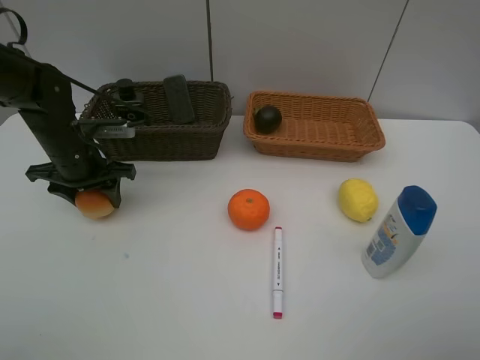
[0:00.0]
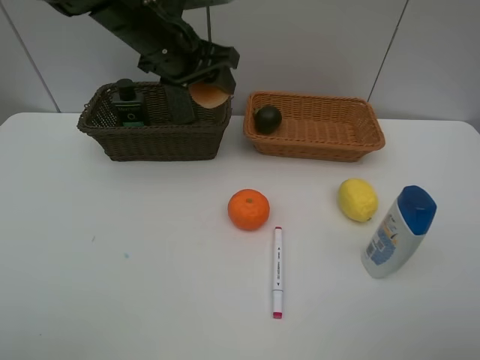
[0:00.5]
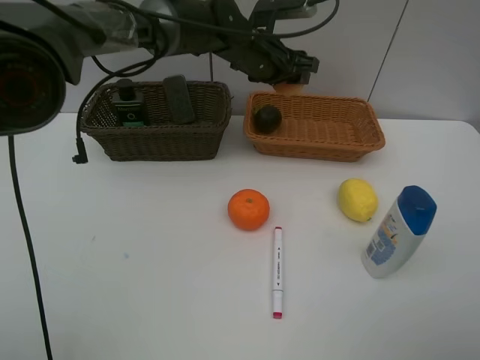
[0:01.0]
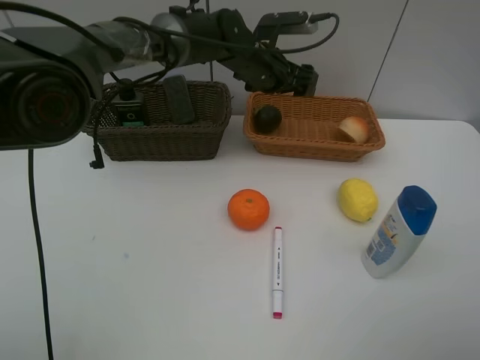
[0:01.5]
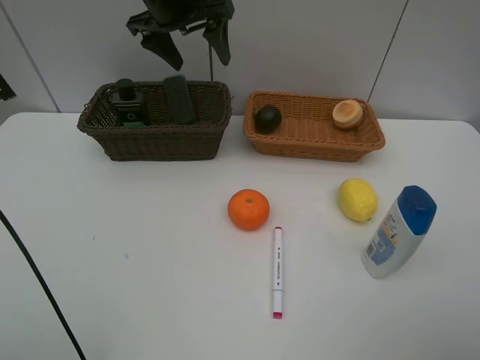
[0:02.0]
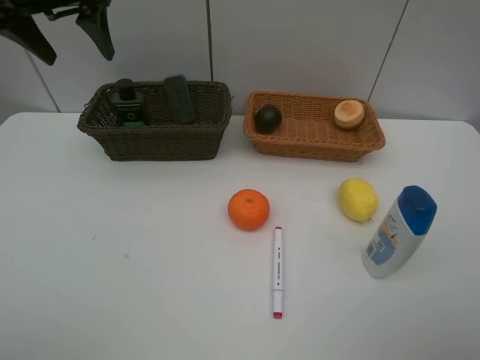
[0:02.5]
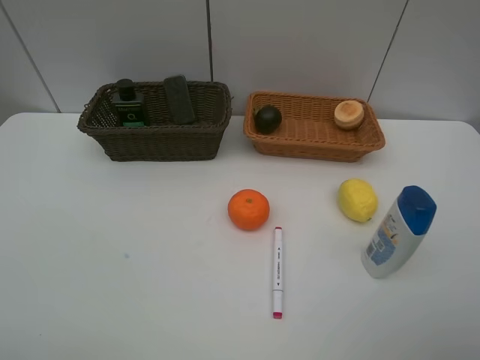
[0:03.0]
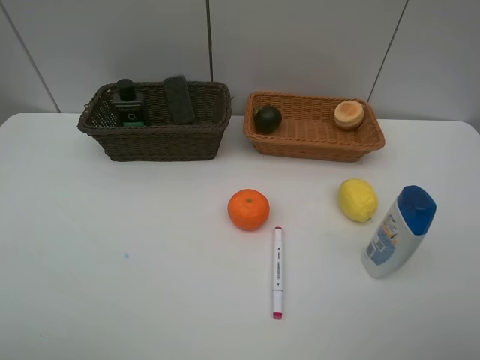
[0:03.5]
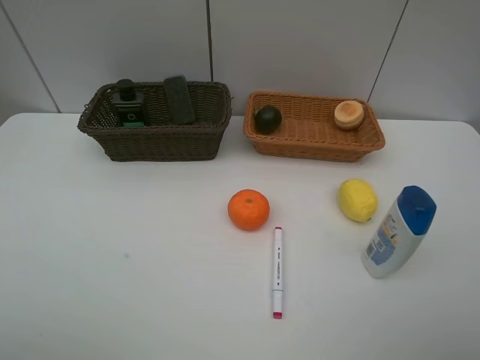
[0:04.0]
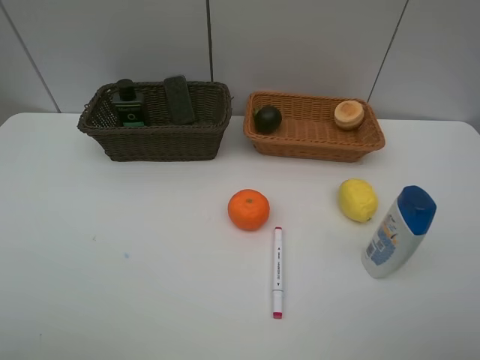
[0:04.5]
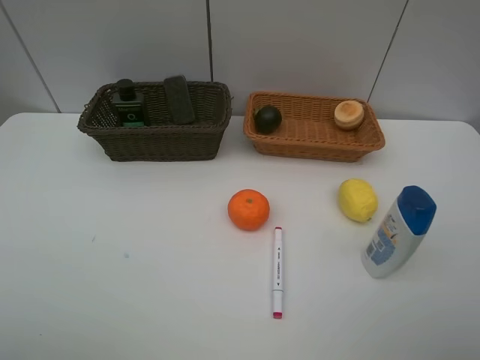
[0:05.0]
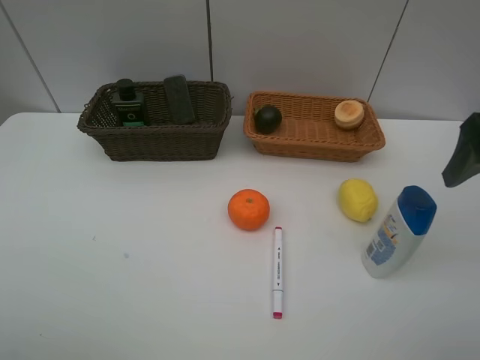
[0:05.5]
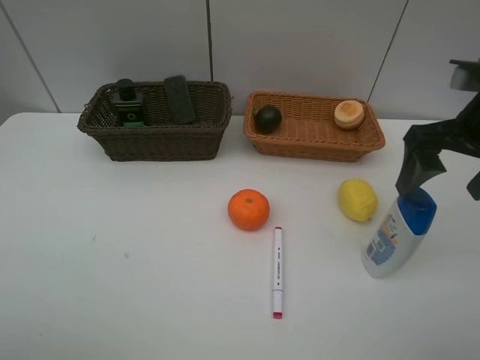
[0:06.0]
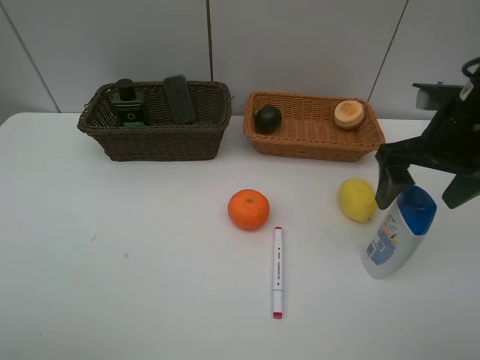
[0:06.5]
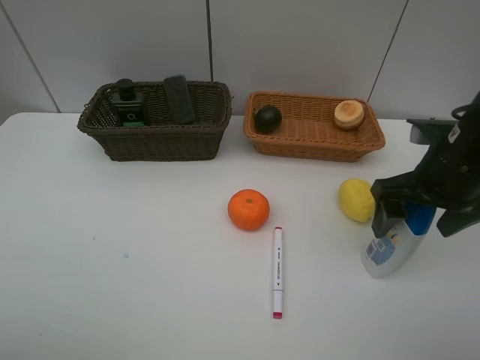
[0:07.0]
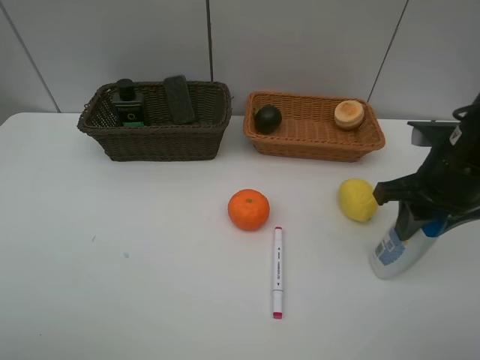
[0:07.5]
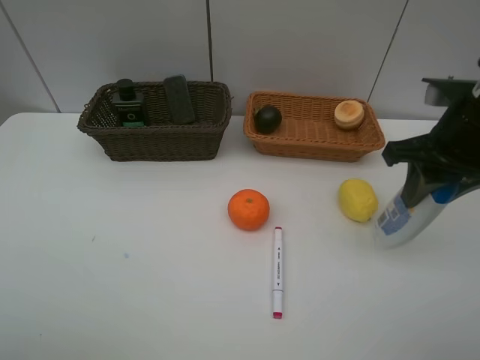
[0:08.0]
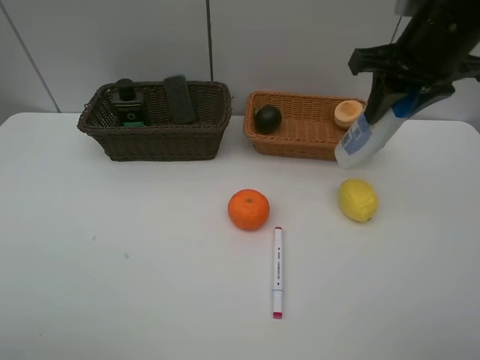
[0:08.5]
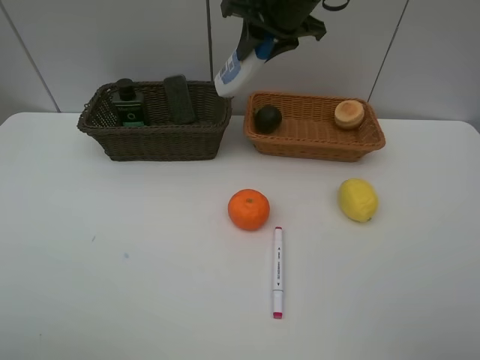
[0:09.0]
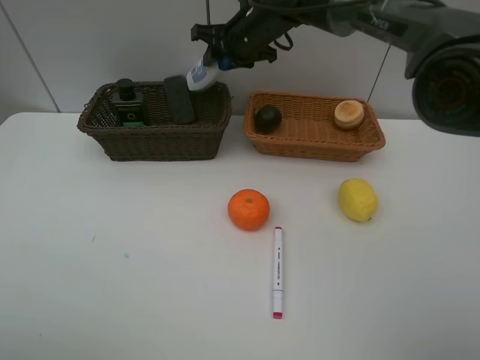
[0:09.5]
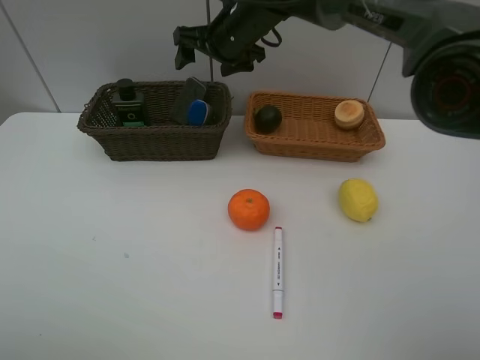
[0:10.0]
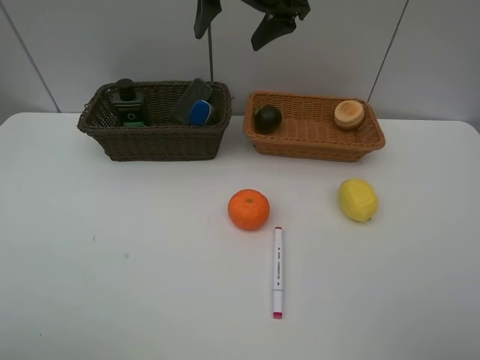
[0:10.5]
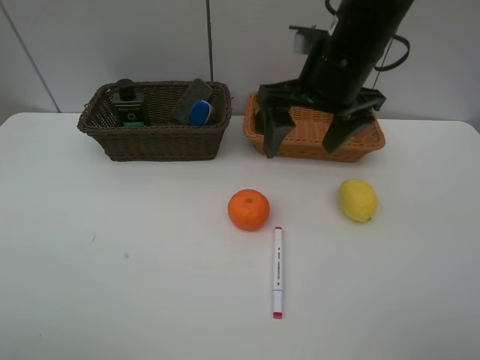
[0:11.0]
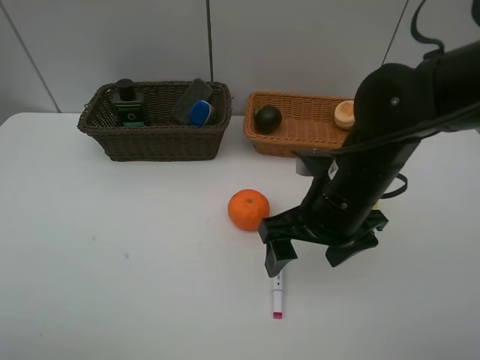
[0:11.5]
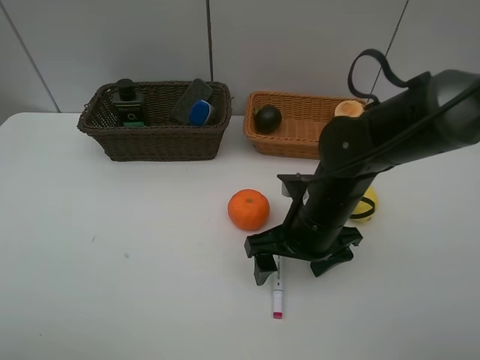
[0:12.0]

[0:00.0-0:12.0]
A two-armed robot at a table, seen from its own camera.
Task of the whole recording: Place multiple objects separately in different baskets.
Step, 0.5 to 1.0 s: Place the egg yolk pastry in the light basket with left gripper.
Step, 1.5 to 8.0 s: Pick up the shampoo with right gripper.
Step, 8.5 to 10.0 s: Place the shampoo in the dark basket with right gripper.
0.0 to 2.0 s: The left gripper heads upward, to the right and forward, covering roughly 25 cm, and opens up.
2.0 to 4.0 s: The left gripper travels backward and to the left by roughly 50 cm.
4.0 to 6.0 s: The right gripper travels forward by roughly 25 cm.
6.0 to 8.0 s: The right gripper closes its fingers.
8.0 to 10.0 s: The right gripper shifts some 30 cm to the left and forward, and opens its fingers.
10.0 to 12.0 s: The right gripper is displaced backward, downward and to the right by about 30 cm.

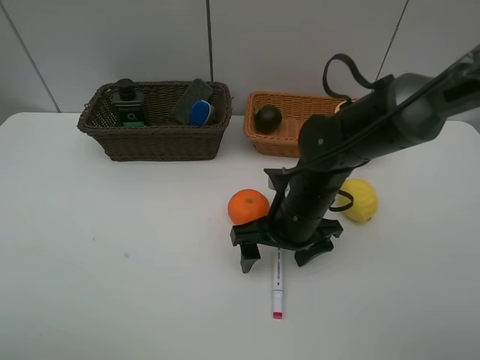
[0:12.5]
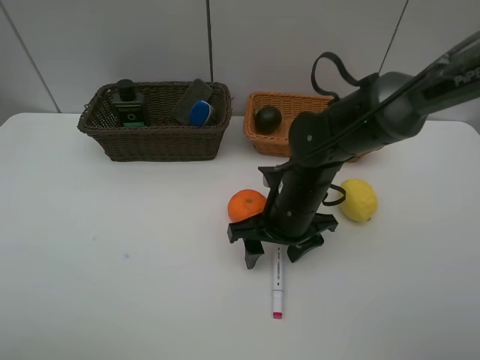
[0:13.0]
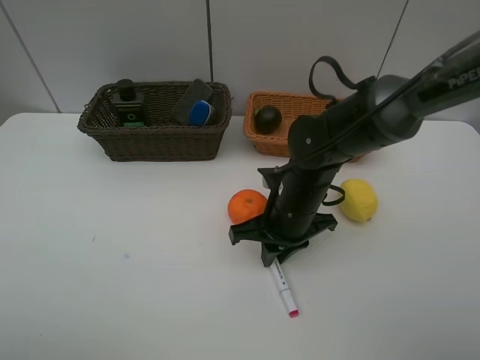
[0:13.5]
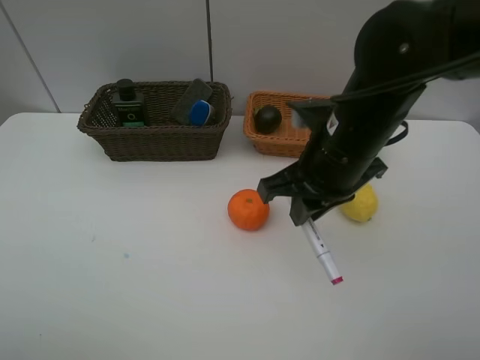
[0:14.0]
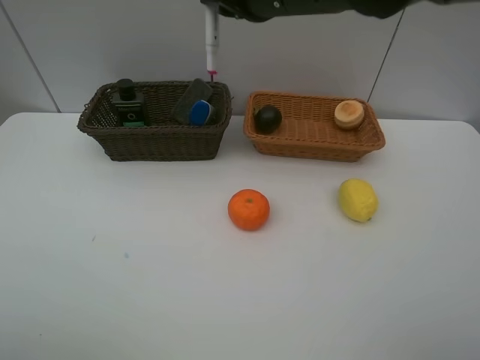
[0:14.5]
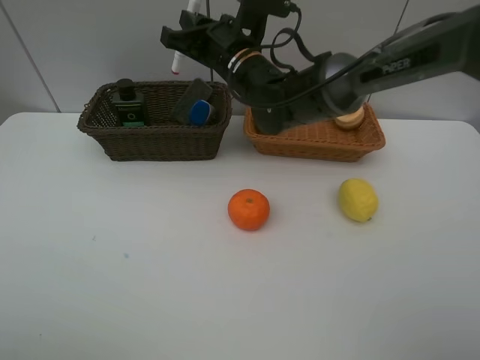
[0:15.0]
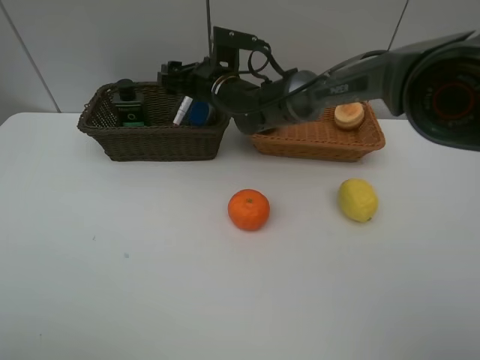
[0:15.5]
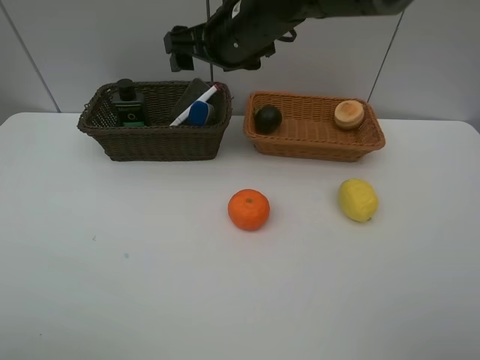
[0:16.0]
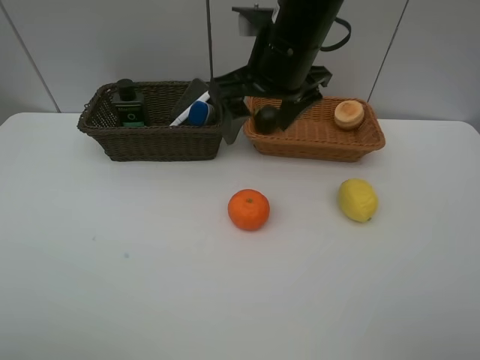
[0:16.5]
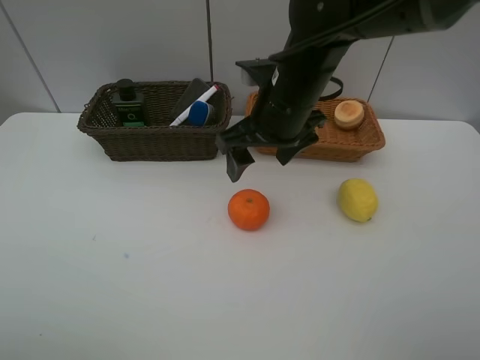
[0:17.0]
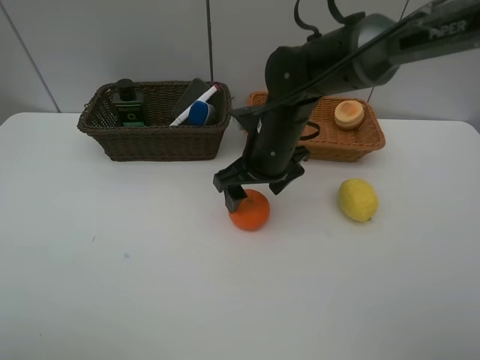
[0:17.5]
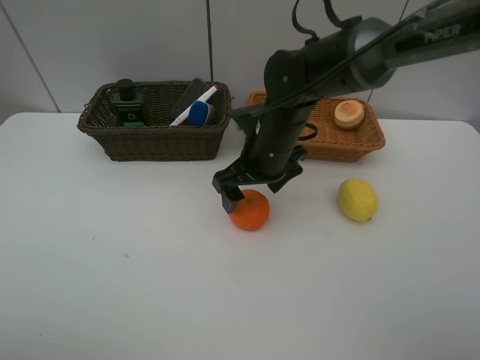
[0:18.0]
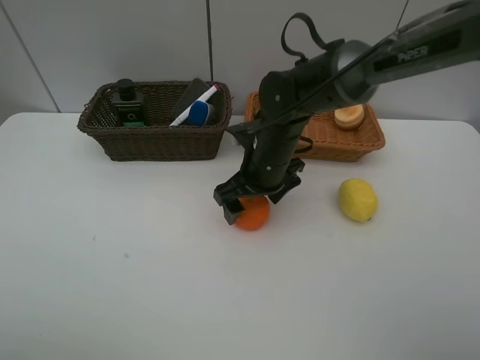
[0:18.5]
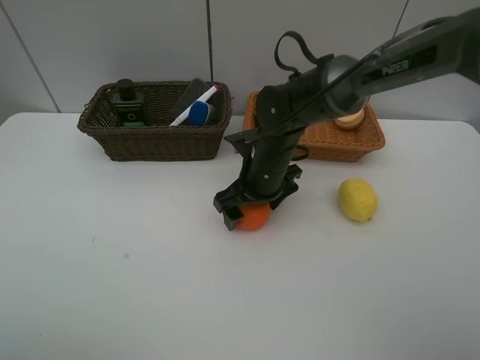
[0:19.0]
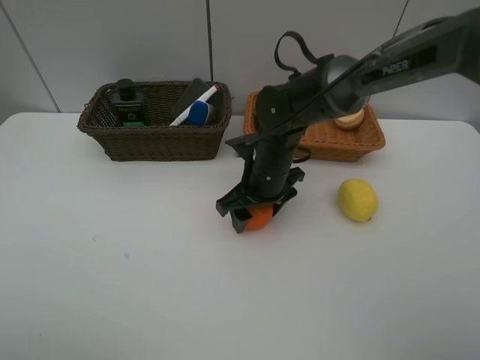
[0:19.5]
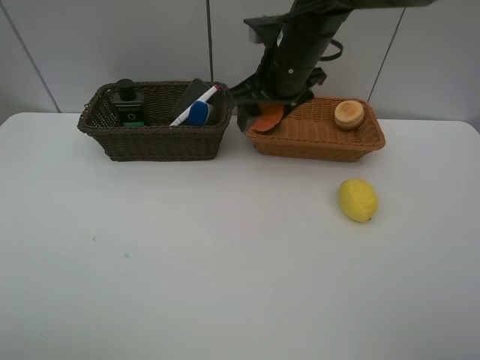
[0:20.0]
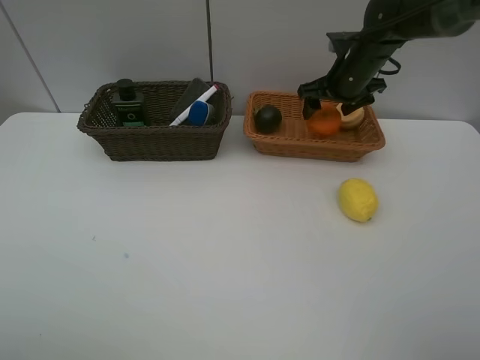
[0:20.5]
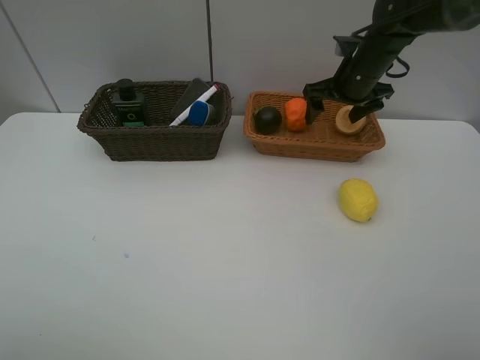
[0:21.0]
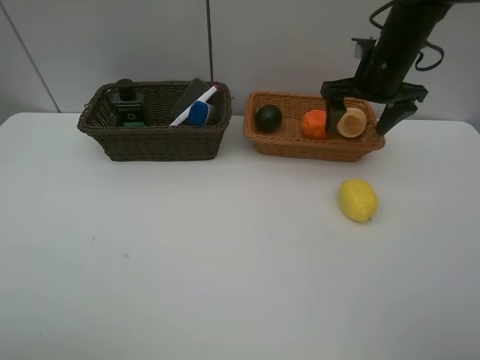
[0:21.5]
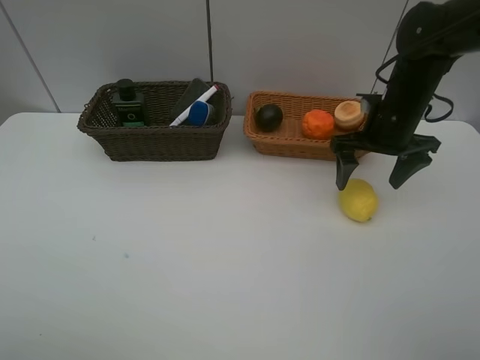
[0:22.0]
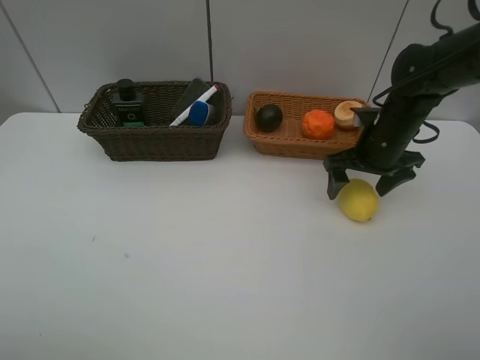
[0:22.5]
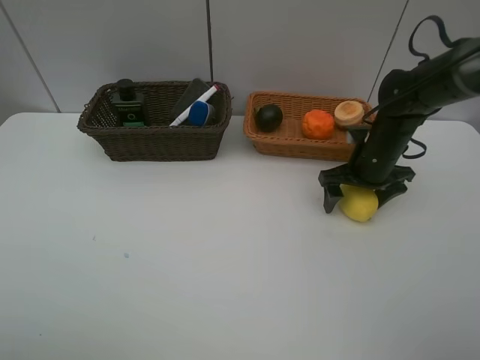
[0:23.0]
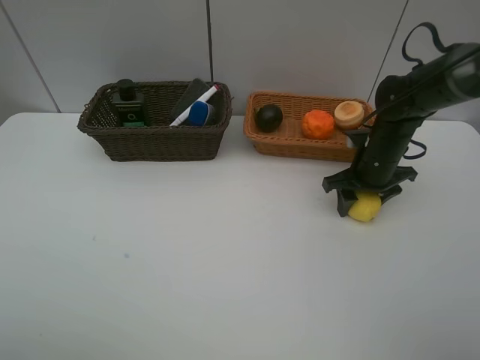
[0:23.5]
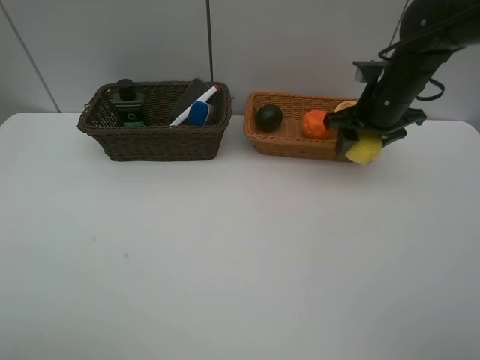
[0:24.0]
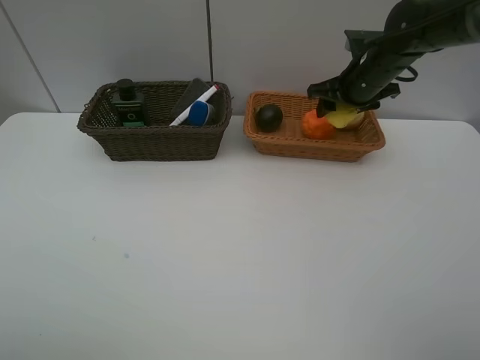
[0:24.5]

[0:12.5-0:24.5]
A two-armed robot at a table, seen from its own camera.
Task of the whole recording: Place multiple objects separately in different baskets.
Step, 14.0 to 15.5 s: Place the red marker in the dark basket with right gripper.
Step, 16.0 to 19.5 s: Pick up the orange with right gripper.
Step, 20.0 to 20.5 s: Place the orange in the light basket with right gripper.
Step, 21.0 to 23.5 s: Pick up the lemon with right gripper.
12.5 to 14.5 s: The right gripper shifts about 20 cm upward, and closes.
14.5 to 16.5 s: The right gripper moves approximately 15 cm downward and comes back, and opens up.
16.5 to 18.5 s: The right gripper goes some 15 cm downward.
18.5 to 20.5 s: The right gripper moves to the right, forward and upward, about 20 cm.
20.5 to 22.5 s: The right gripper moves backward and downward, about 10 cm.
22.5 to 24.5 s: The right gripper goes about 10 cm forward and upward.

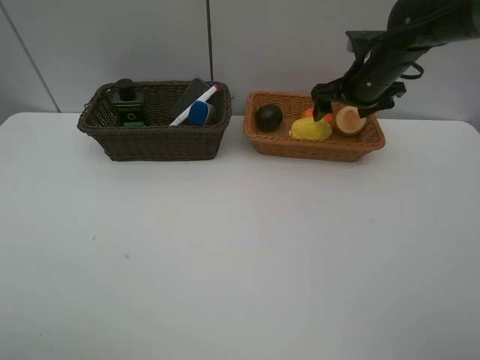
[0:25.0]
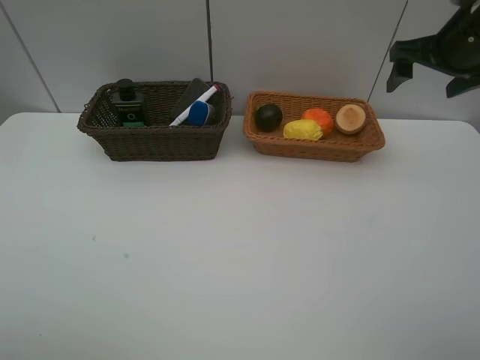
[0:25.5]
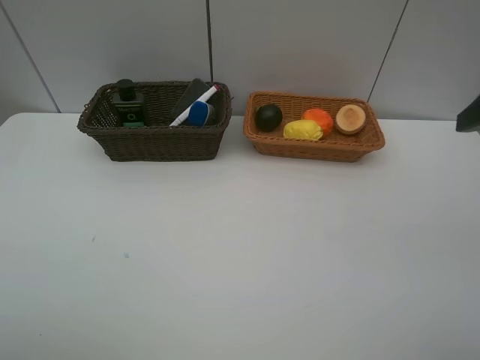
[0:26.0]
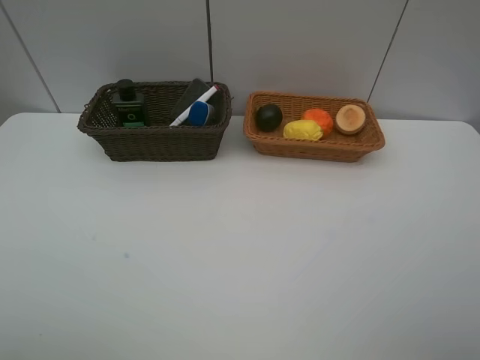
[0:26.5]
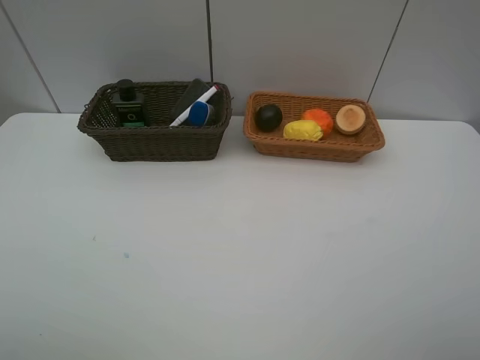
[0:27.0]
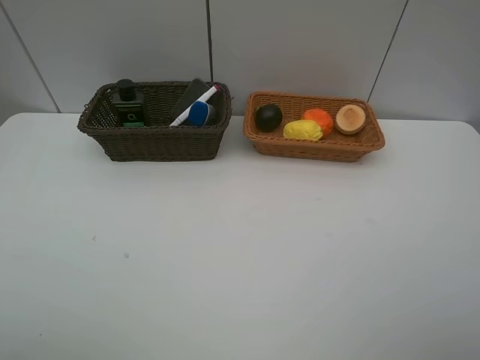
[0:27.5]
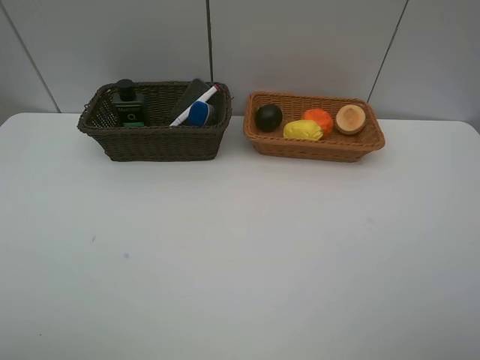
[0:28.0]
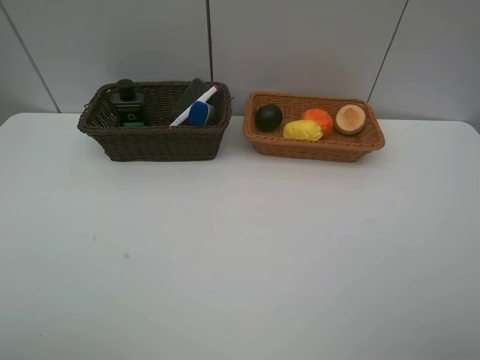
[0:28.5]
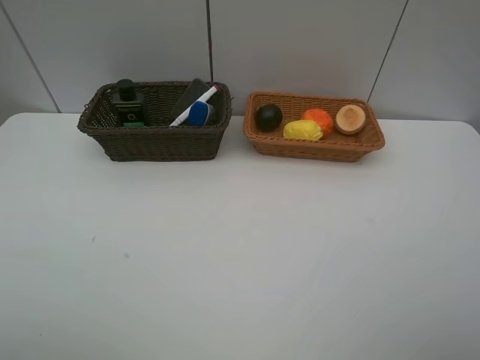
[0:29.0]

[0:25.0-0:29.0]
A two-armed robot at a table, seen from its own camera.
Task of the whole recording: Place multiple objects separately in different baskets.
25.0 to 27.0 s: The right gripper is displaced backward by approximately 40 cm.
